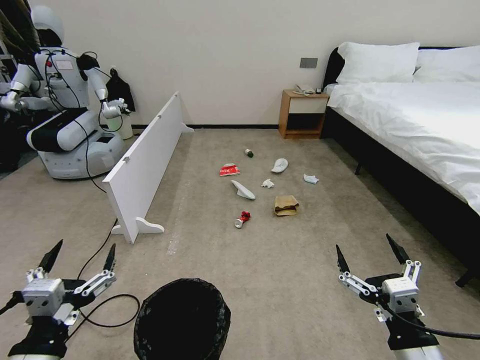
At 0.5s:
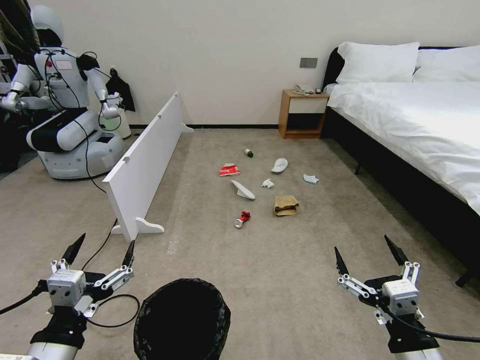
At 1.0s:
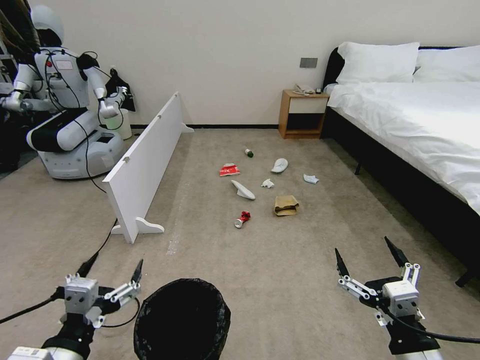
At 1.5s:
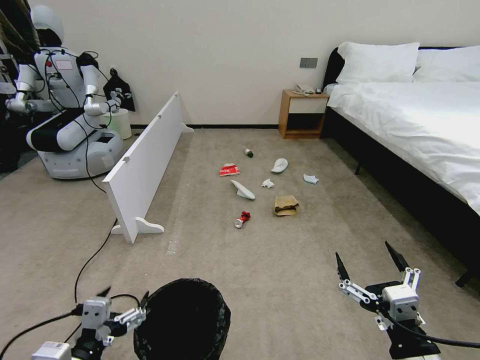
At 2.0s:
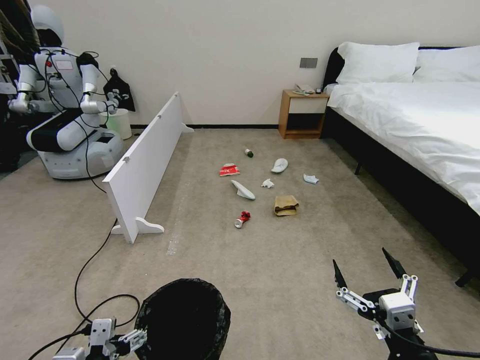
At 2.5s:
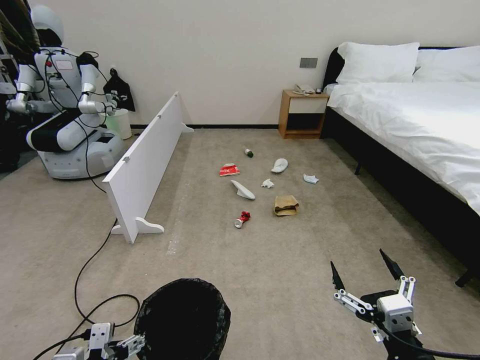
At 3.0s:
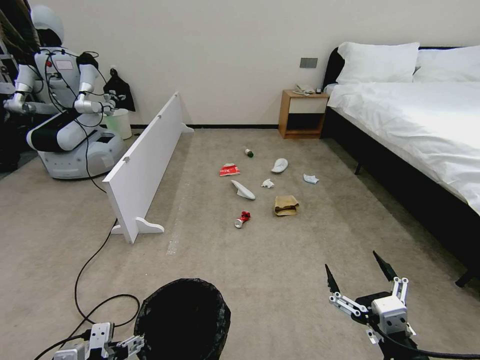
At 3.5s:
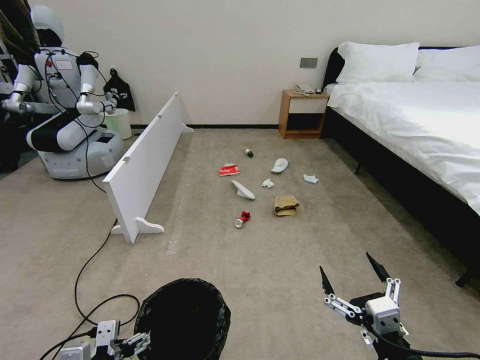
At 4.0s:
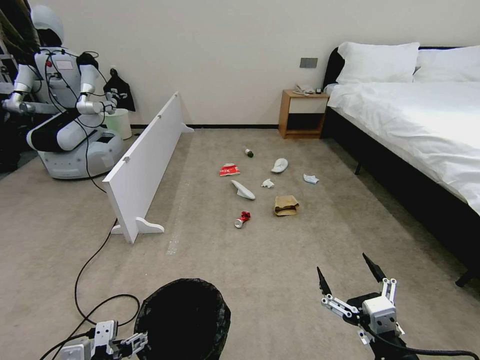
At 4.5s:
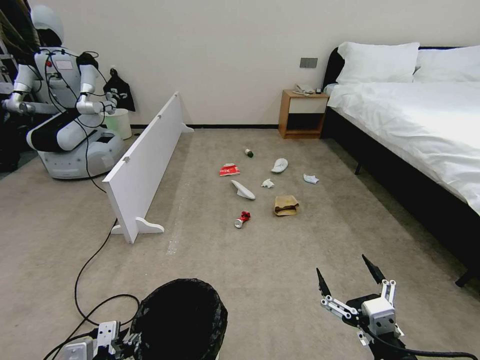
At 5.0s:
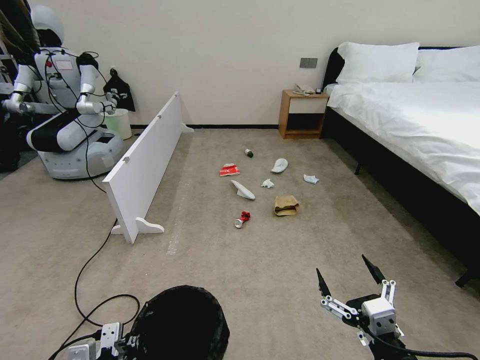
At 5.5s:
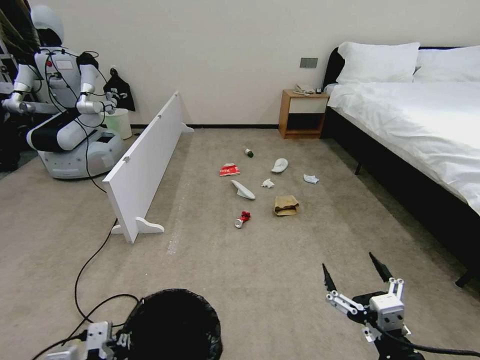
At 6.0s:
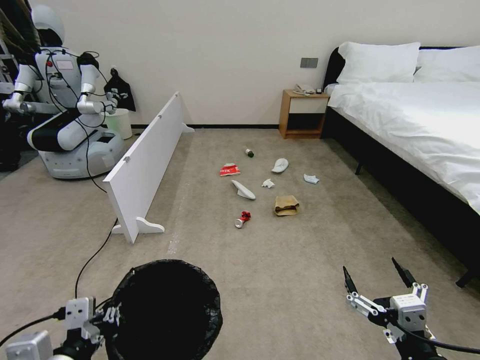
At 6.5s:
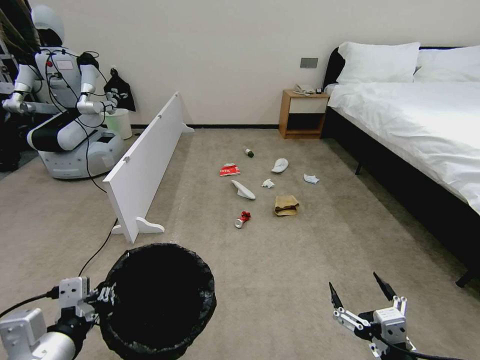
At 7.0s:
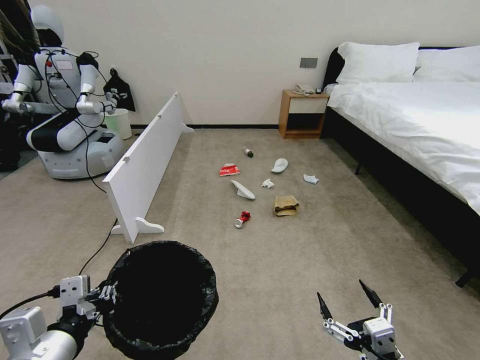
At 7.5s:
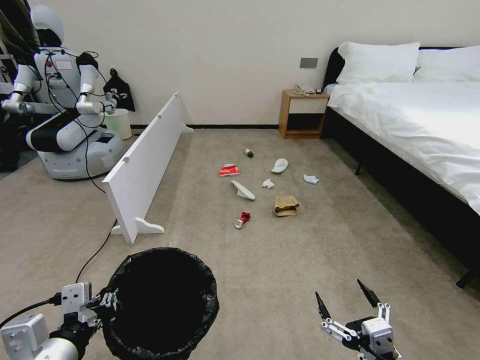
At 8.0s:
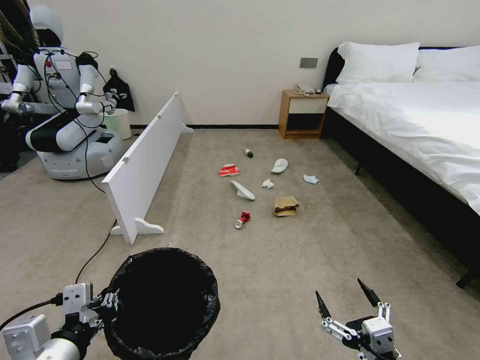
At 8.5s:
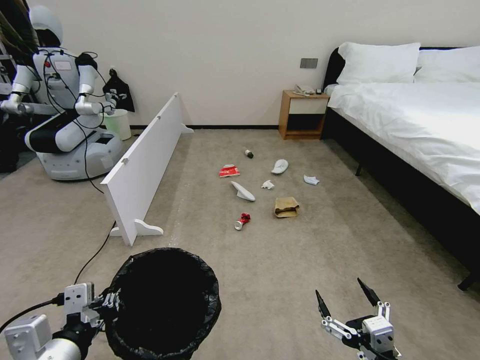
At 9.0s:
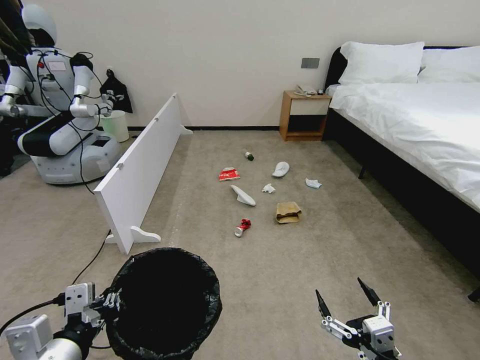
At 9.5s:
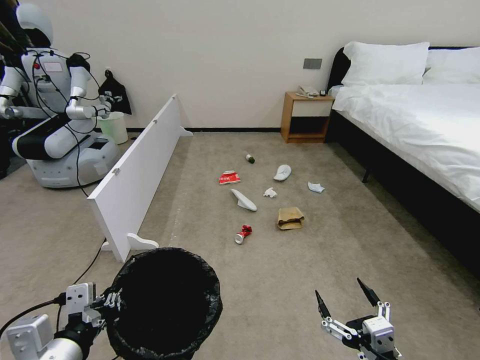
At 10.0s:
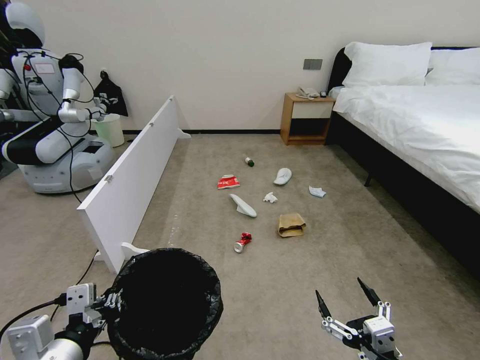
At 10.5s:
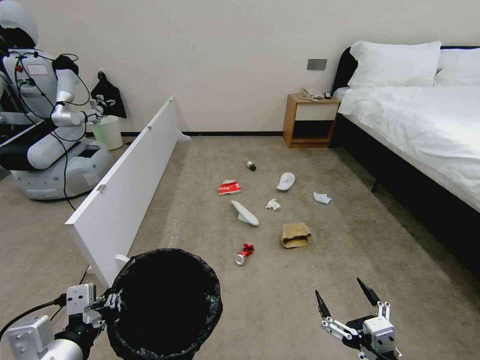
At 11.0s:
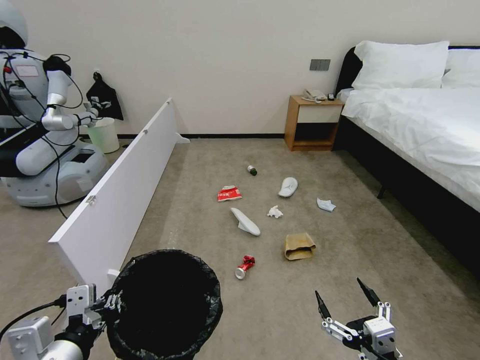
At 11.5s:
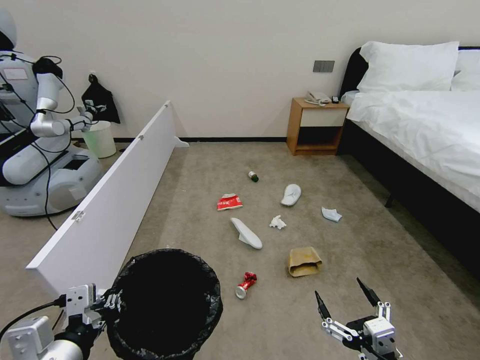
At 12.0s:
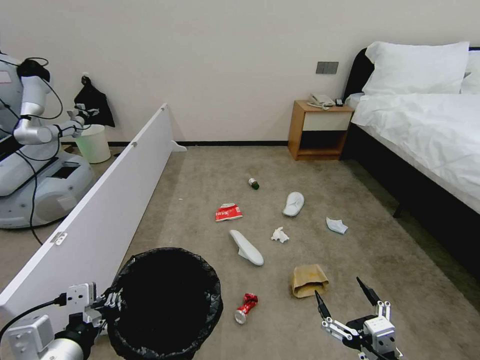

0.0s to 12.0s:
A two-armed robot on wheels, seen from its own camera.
Task of the whole recording: Pick up the trash bin, then pick up the garbage from the floor and place it into the trash bin.
2.0s to 4.0s: The grippers move only a little.
4.0s to 6.0s: The left gripper heads upward, covering some 10 cm, and closes.
6.0s to 8.0s: The right gripper shifts by approximately 5 cm.
8.0s to 10.0s: Both grippers stay put.

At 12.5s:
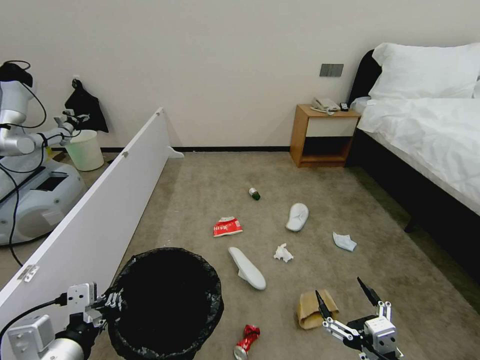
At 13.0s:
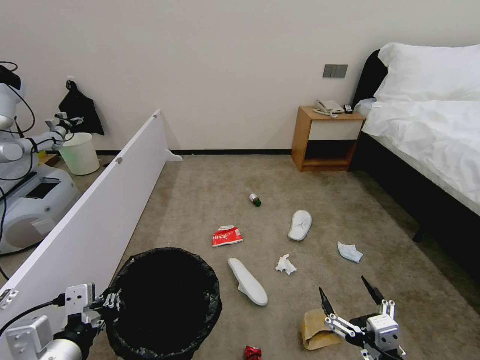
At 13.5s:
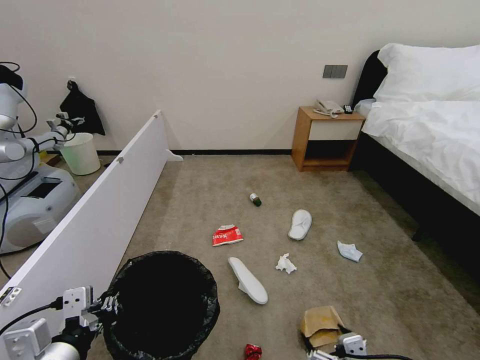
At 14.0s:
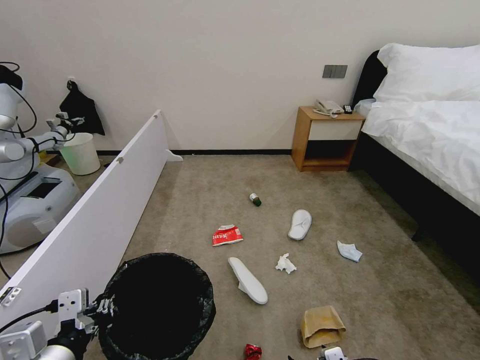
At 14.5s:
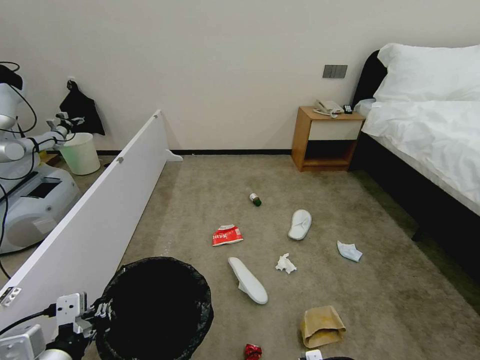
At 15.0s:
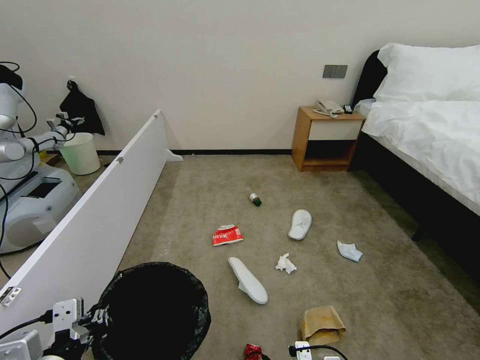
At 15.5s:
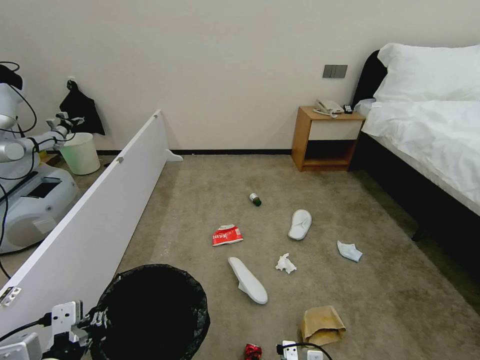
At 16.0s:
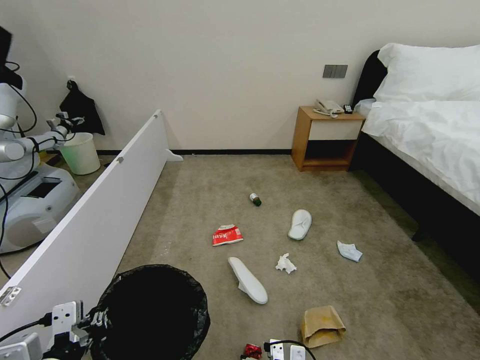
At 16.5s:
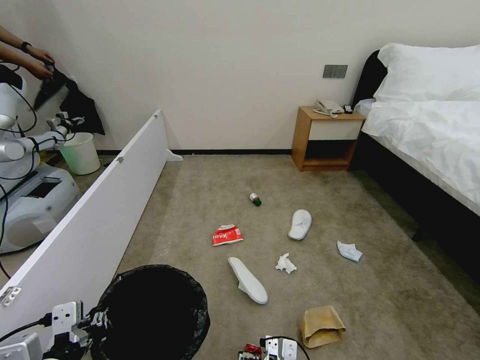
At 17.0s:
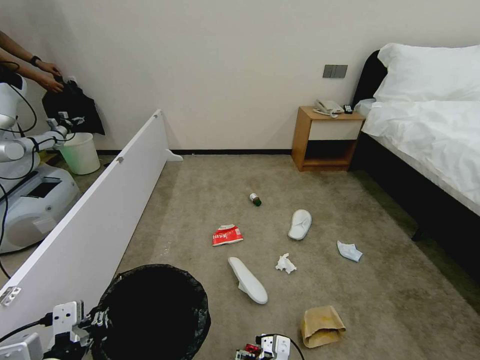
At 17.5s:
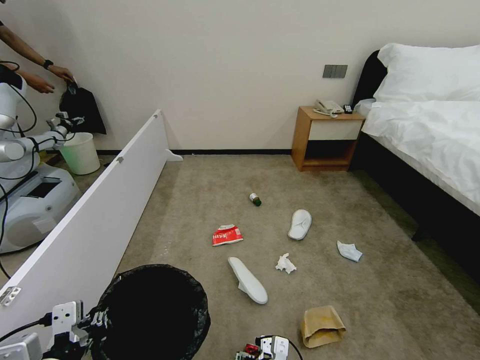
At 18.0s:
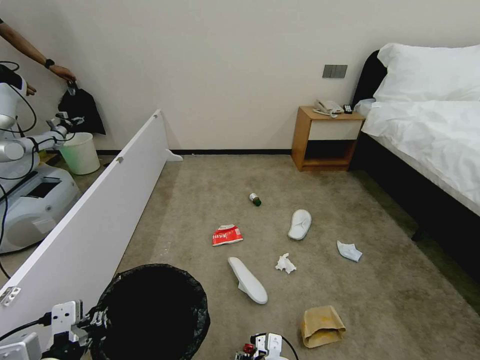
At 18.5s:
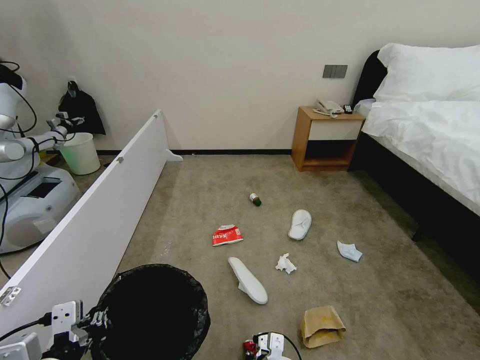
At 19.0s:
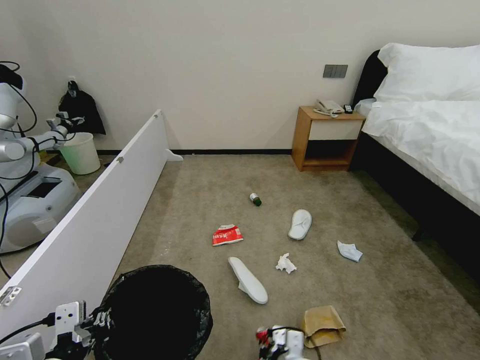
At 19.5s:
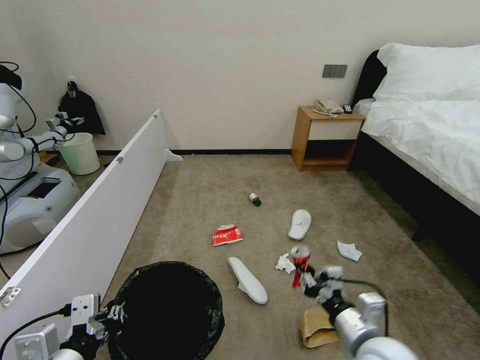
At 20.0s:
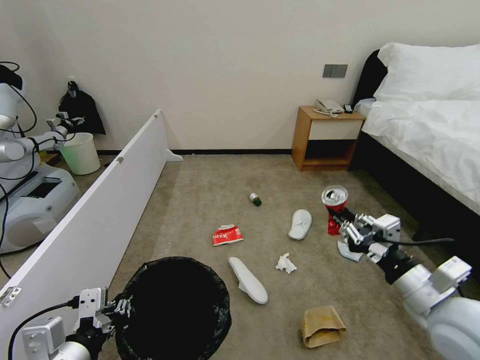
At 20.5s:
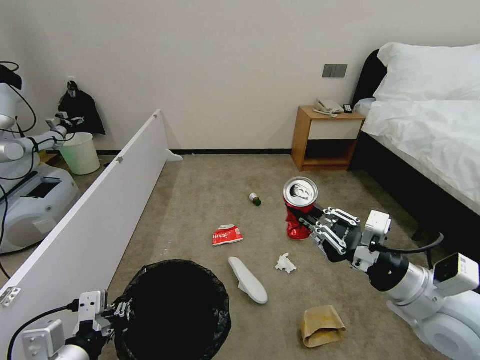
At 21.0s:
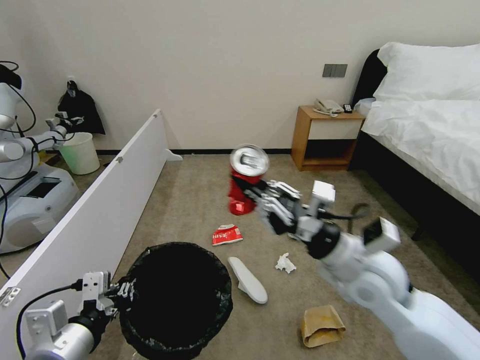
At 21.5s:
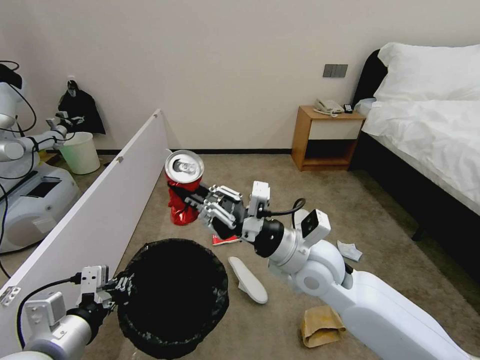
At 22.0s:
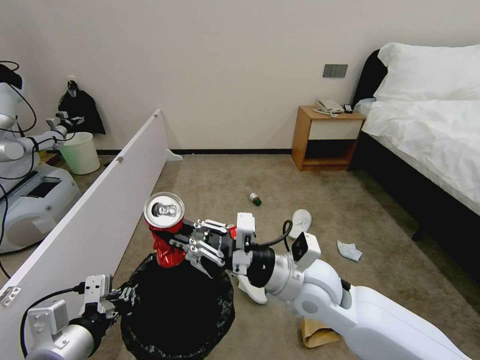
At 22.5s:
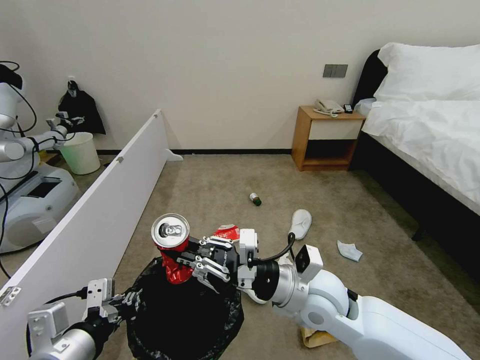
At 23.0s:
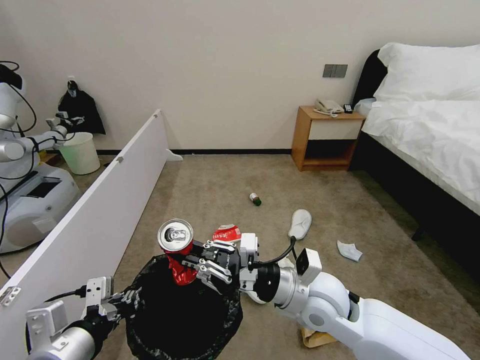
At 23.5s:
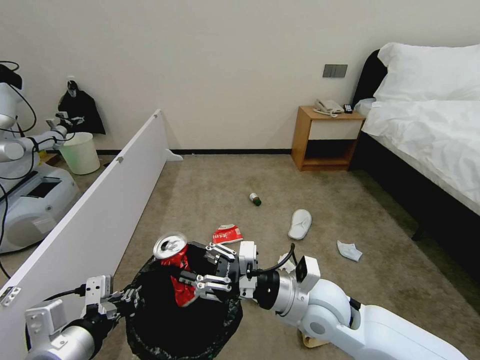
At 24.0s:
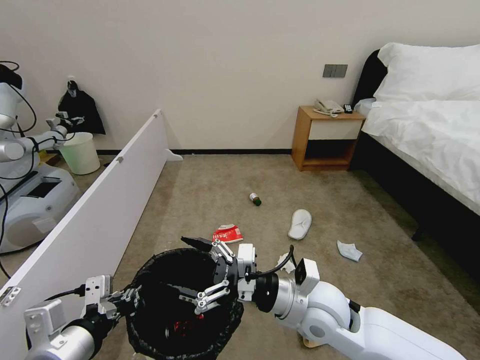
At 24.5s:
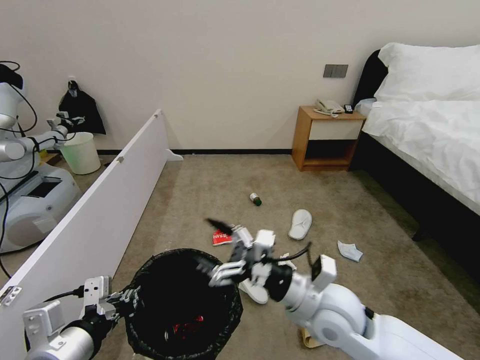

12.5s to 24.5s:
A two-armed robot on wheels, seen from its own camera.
Task of the whole recording: Pick up the trash bin, then pick up the garbage from the floor and place it into the trash bin.
12.5s to 14.5s: The right gripper is displaced to the left and downward by some 10 cm.
14.5s to 16.5s: The right gripper travels downward, to the left and forward by approximately 15 cm.
16.5s to 18.5s: The right gripper changes place by about 5 cm, and closes its fingers.
18.5s to 20.5s: The right gripper heads upward and to the right, covering some 40 cm.
20.5s to 22.5s: The right gripper moves to the left, about 15 cm.
22.5s to 24.5s: The right gripper opens its fingers.

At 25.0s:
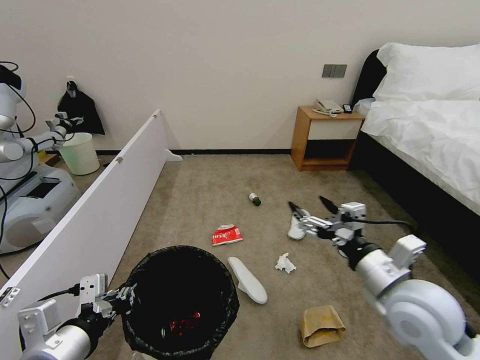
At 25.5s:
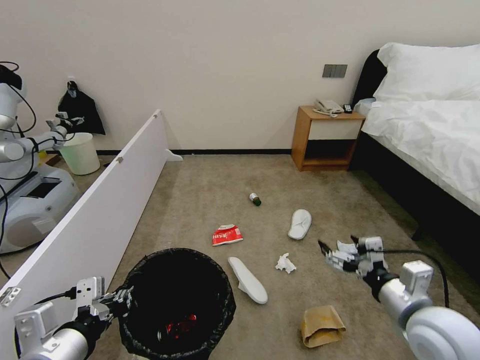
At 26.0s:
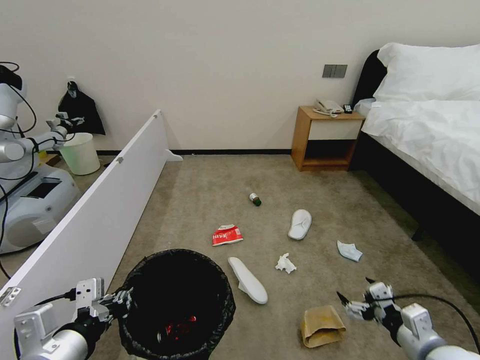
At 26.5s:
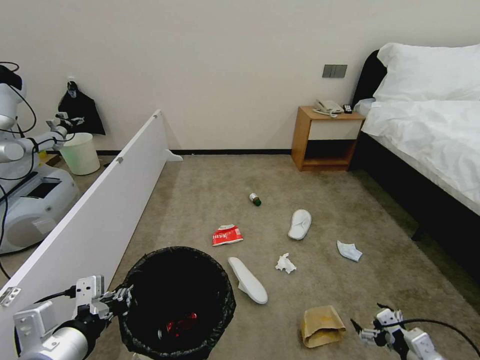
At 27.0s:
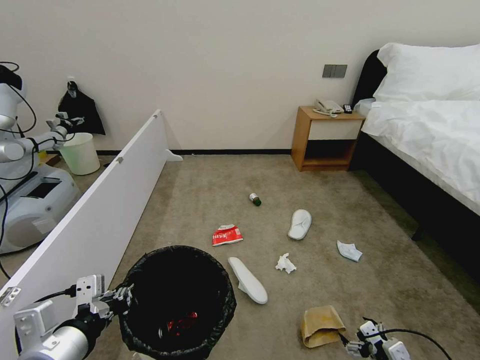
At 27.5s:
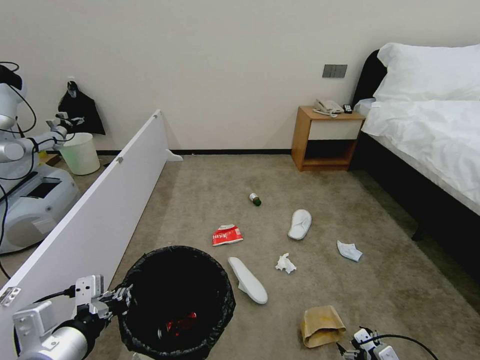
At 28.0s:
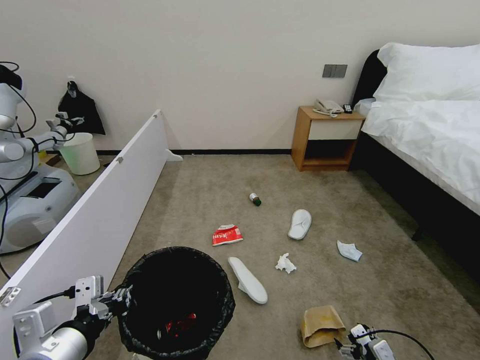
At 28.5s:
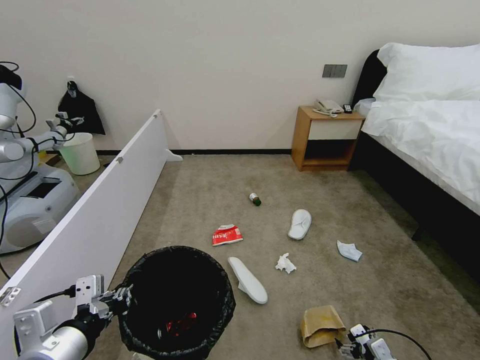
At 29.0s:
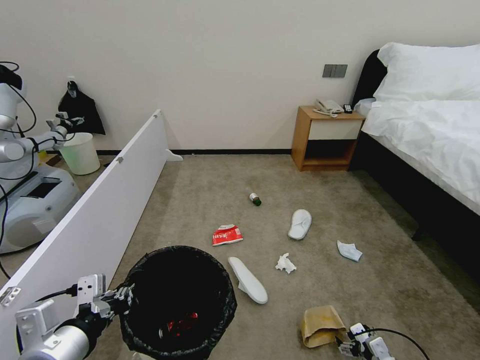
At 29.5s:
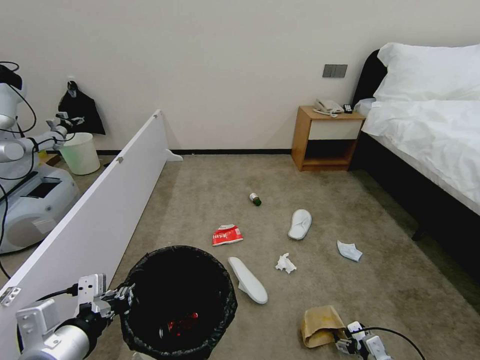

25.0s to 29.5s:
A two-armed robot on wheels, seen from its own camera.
Task of the whole recording: Pick up the trash bin, then pick up the garbage from the floor and place it into the trash bin.
25.0s to 27.0s: The right gripper is displaced downward and to the right by approximately 30 cm.
27.0s to 29.5s: The right gripper is displaced downward by roughly 10 cm.
